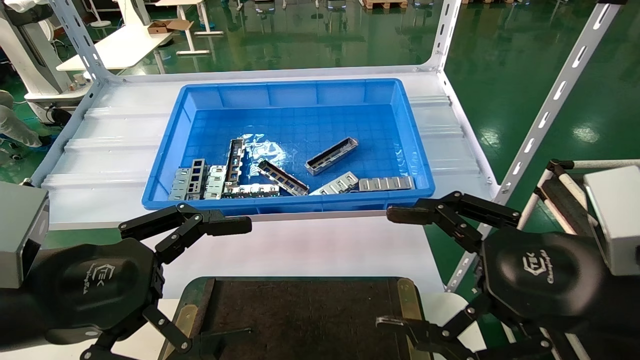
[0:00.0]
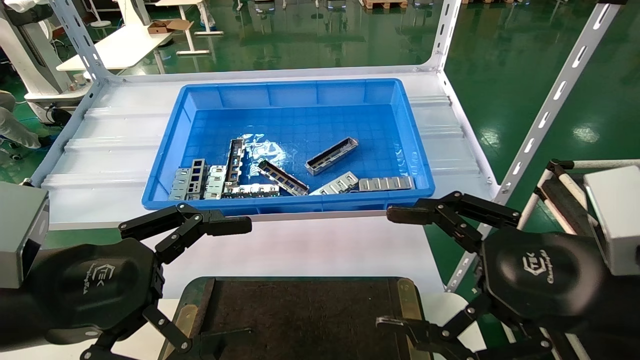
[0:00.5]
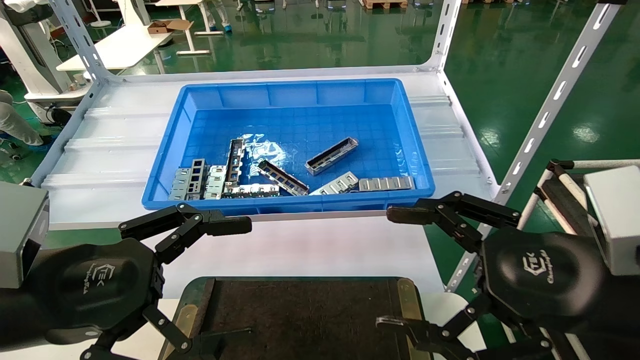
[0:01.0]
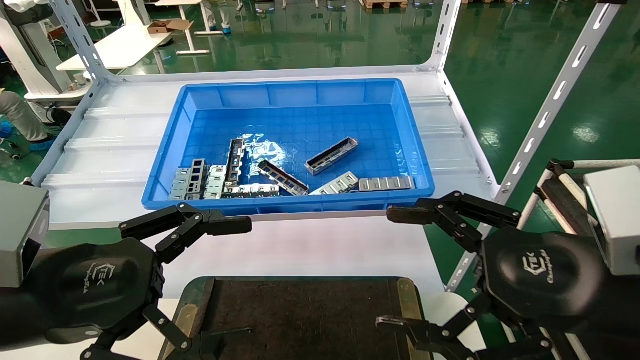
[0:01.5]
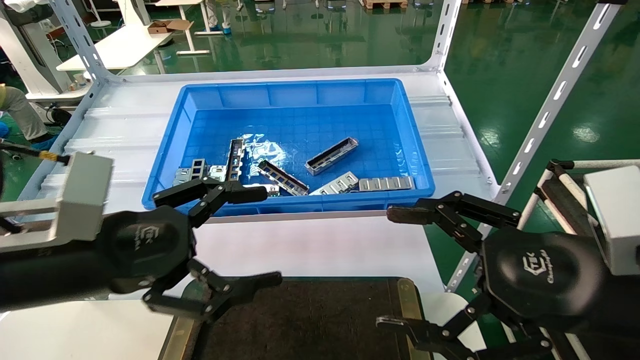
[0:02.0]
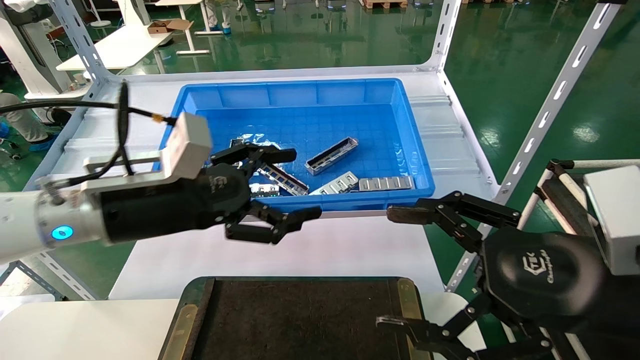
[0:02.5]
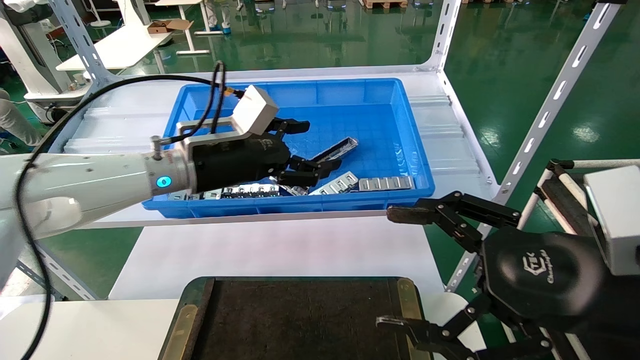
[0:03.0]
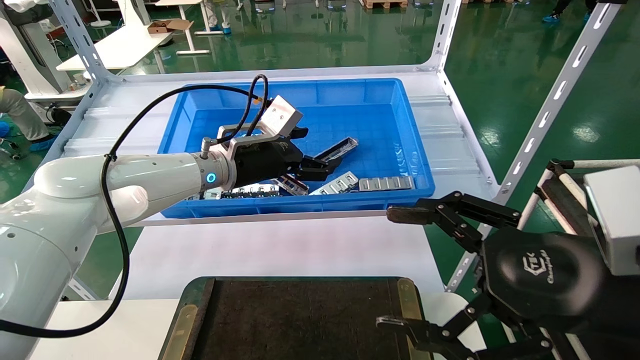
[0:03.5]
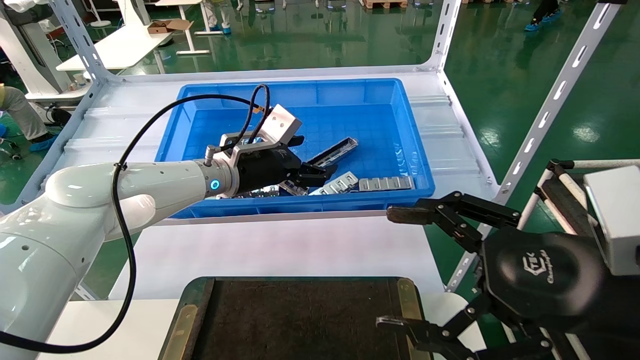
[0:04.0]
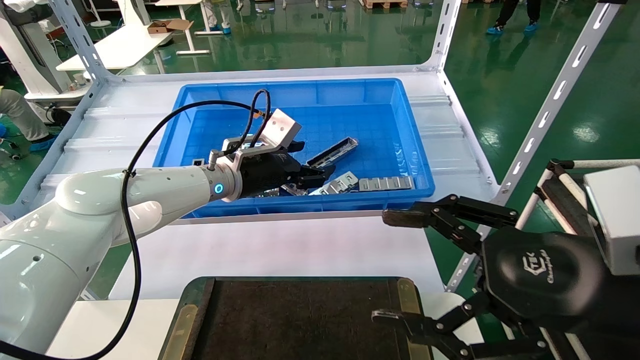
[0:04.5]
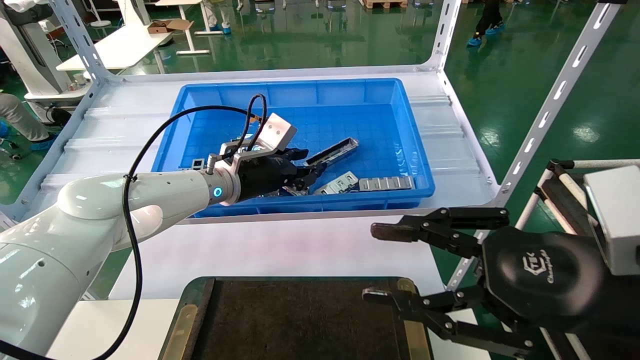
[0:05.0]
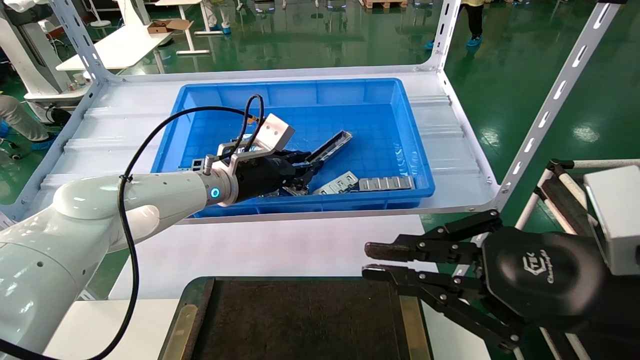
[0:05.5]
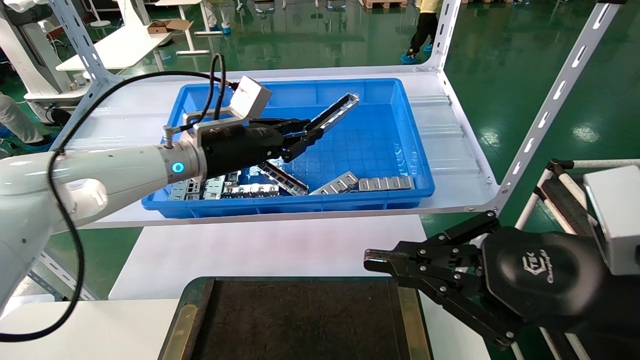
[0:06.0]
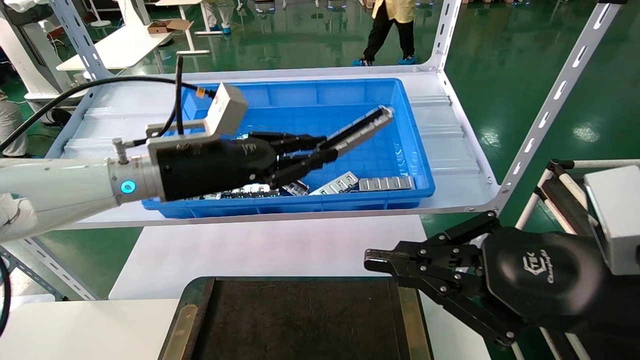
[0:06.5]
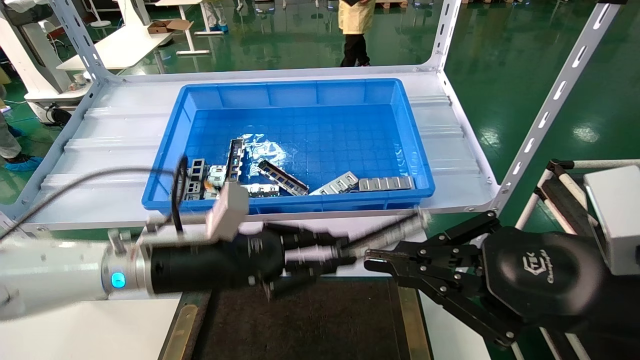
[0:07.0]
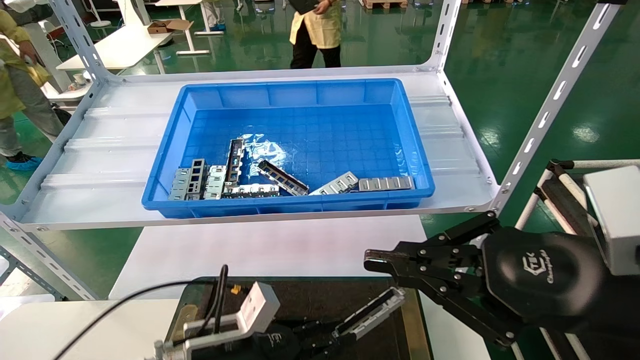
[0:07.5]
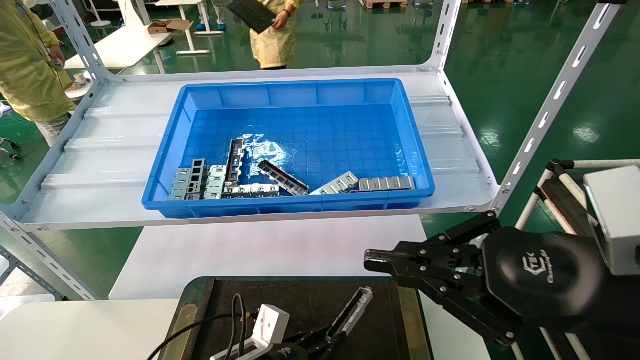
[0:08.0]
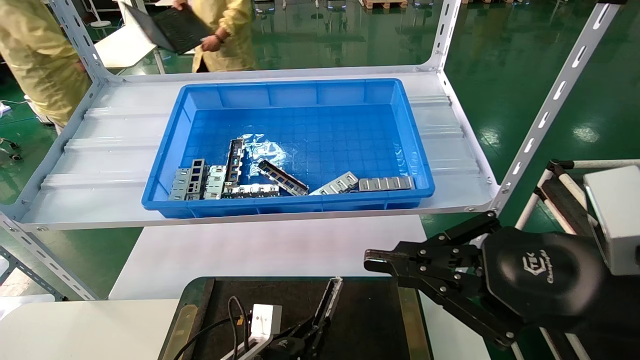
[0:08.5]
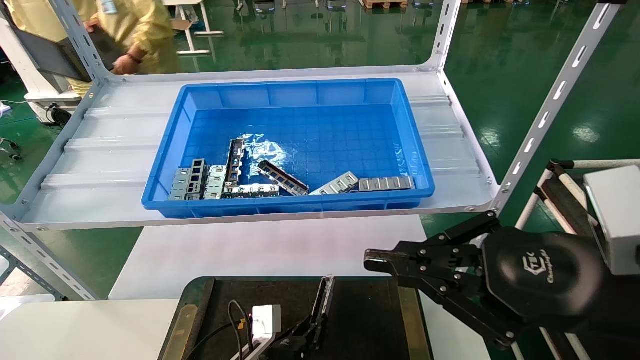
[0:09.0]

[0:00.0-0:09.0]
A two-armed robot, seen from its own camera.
Task of the whole recording: Grasp the part with one hand and place it on the black container.
Step, 0:02.0 to 0:05.0: Pick up the front USB bracket from the feeding area.
0:00.0 to 0:02.0: The grippers move only a little.
0:02.0 to 0:04.5: The left gripper goes roughly 25 cm forward and to the right.
0:04.5 to 0:07.0: The right gripper closes up; the left gripper heads backward and downward, covering about 15 cm, and closes its fingers.
0:07.0 to 0:09.0: The left gripper heads downward, covering approximately 25 cm.

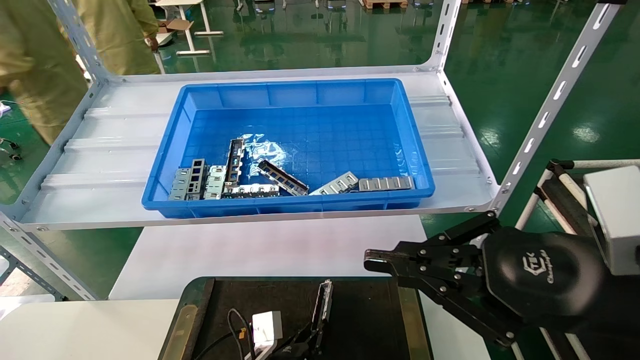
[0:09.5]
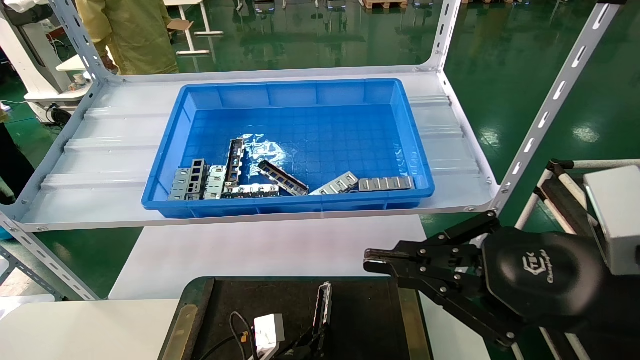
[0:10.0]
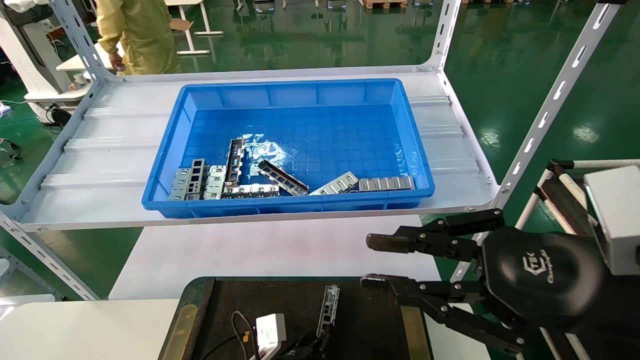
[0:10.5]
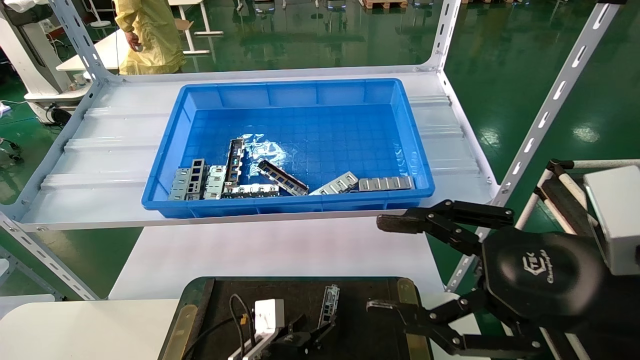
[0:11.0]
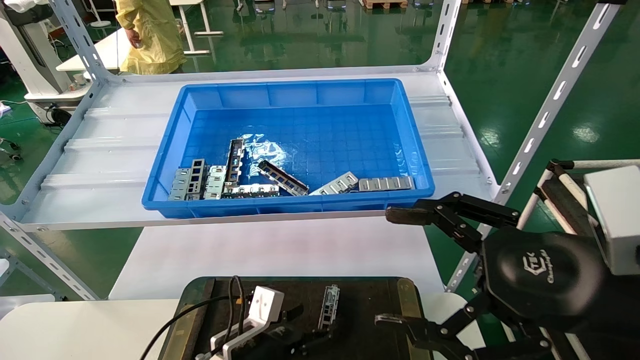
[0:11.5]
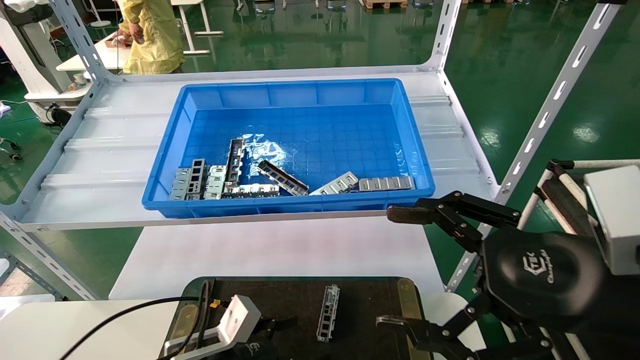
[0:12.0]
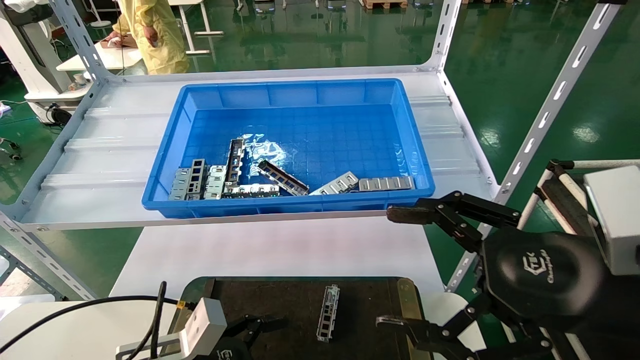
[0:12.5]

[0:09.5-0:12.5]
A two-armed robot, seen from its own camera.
Task of the whole recording: Grasp the part with one hand and place it on the black container.
0:09.5 to 0:11.0: The right gripper opens, while the left gripper opens up.
0:11.0 to 0:12.5: The right gripper opens up, while the left gripper goes roughly 15 cm to the left, upward and backward, and opens up.
